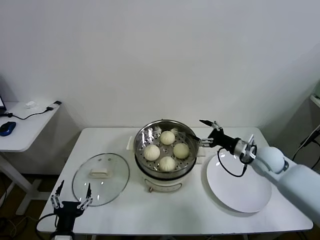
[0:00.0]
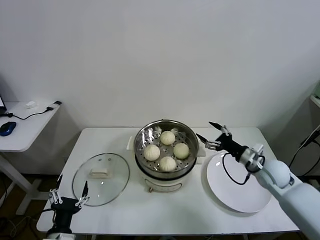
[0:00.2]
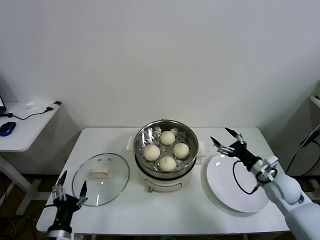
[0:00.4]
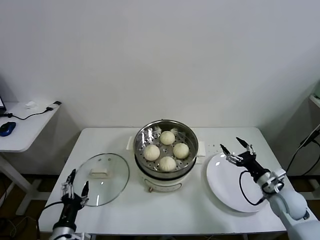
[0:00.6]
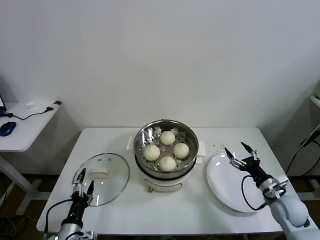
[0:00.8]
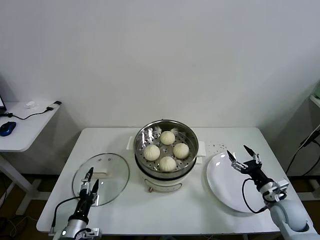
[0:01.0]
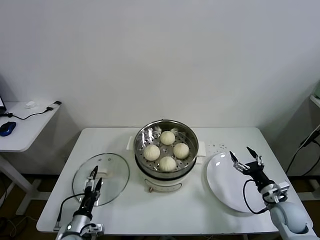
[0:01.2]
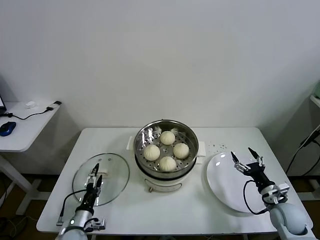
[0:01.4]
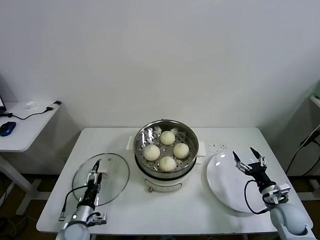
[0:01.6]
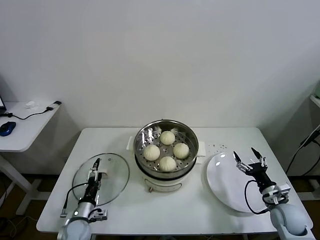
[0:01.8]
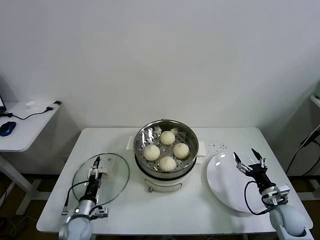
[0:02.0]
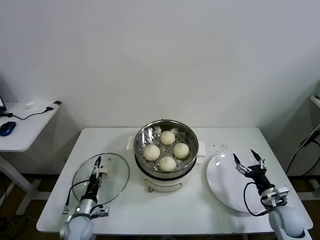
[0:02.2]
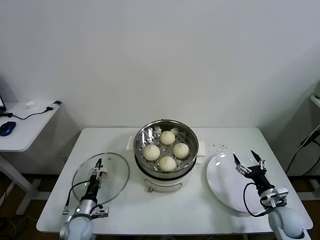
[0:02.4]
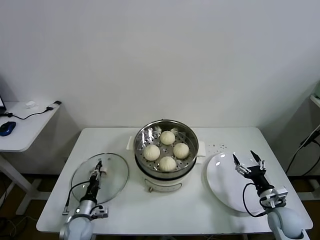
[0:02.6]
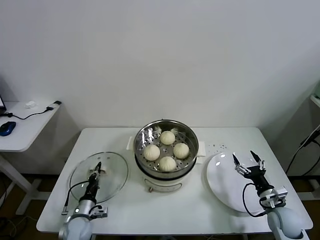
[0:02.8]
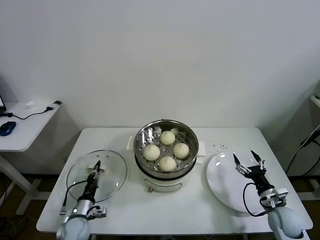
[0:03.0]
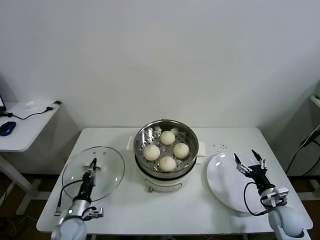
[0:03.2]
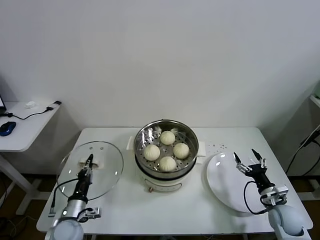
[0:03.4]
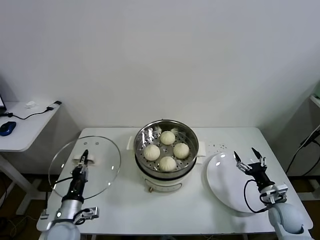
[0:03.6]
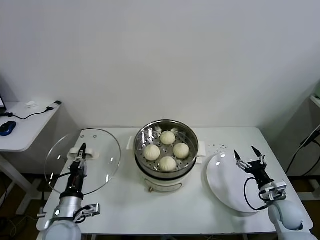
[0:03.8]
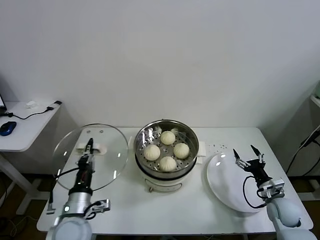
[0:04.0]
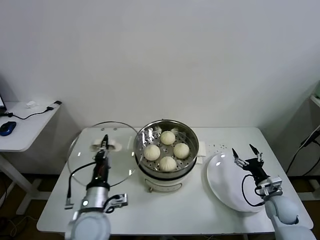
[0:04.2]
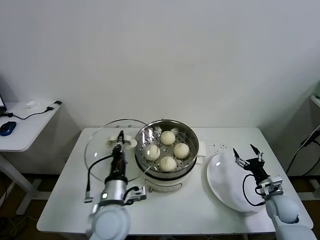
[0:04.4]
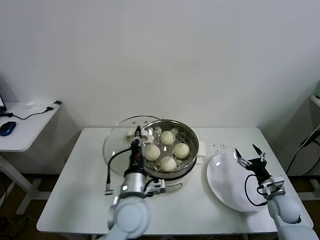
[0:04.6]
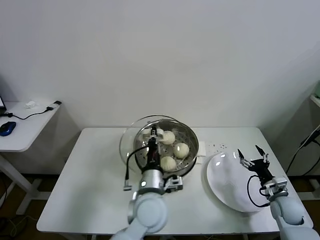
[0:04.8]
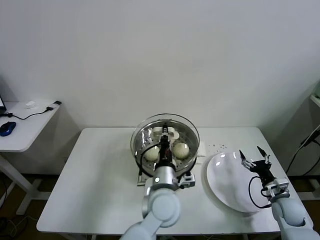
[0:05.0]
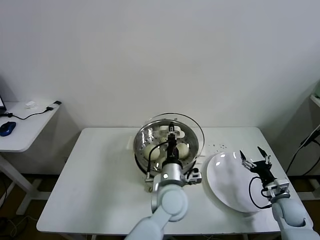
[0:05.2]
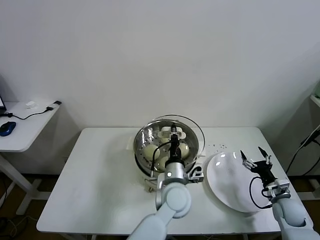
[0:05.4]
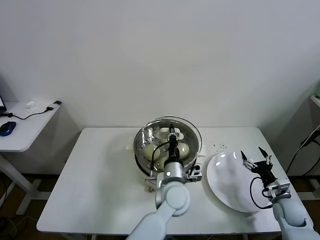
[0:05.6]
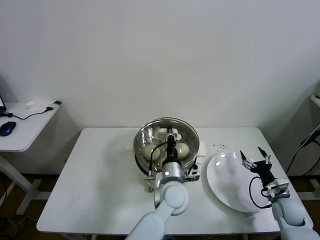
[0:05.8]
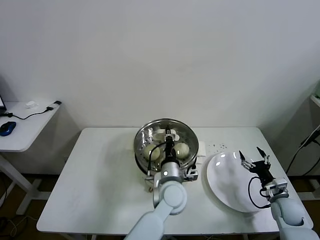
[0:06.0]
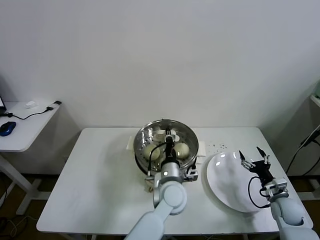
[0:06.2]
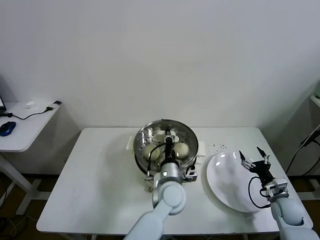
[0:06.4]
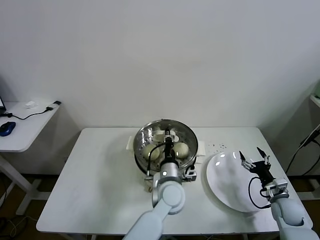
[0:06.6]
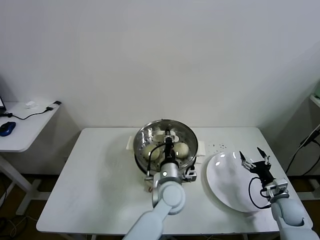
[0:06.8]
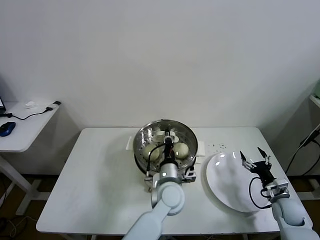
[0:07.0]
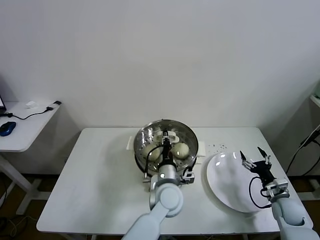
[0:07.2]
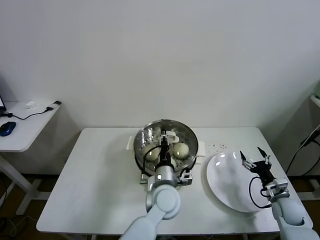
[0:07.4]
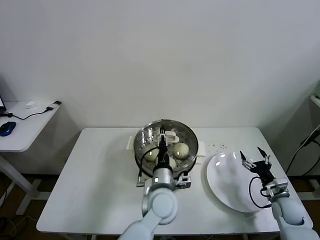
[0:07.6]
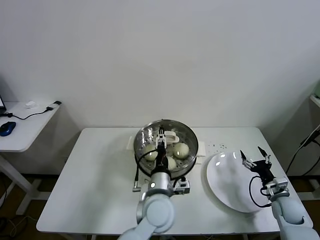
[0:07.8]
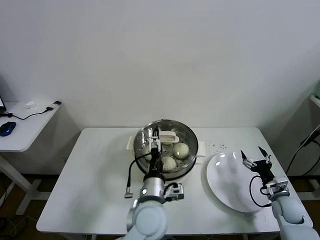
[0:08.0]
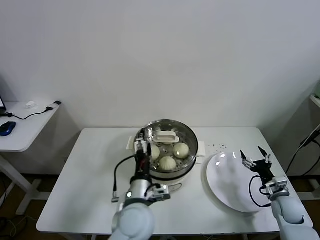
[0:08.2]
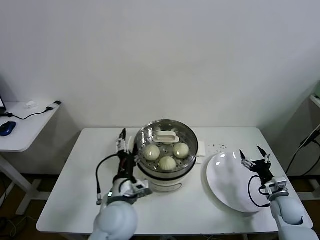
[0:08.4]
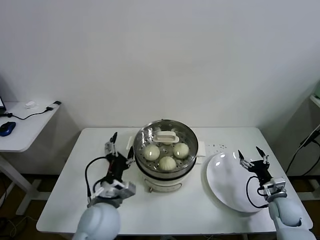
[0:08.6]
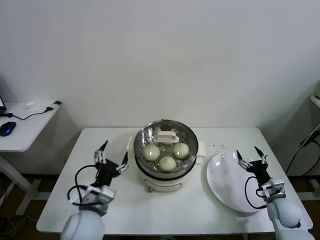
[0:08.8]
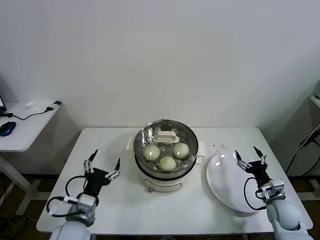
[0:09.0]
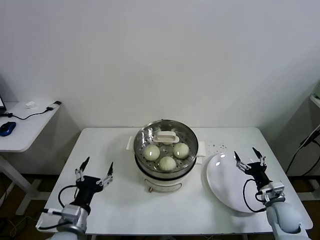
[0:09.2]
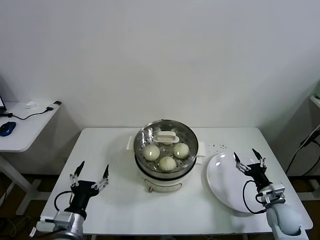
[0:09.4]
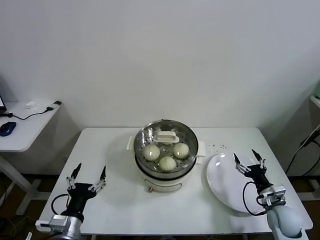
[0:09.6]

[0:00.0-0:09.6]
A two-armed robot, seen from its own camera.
Task of the whole recording: take steamed baozi put them in steamer.
Step, 0:00.0 to 0:02.8: Grasp the pot lid with left gripper.
Step, 0:03.0 to 0:07.6: Place the pot lid on the steamer with left gripper.
0:00.0 to 0:01.6: The left gripper travels forward and downward by some 15 cm; the right gripper shifts some 20 cm backward, downward and to the right.
0:01.6 to 0:03.2: The left gripper closes up.
0:03.2 to 0:04.8: The left gripper heads to the right and upward, covering some 35 cm.
0:04.8 to 0:06.4: The left gripper heads to the right, forward and downward, covering roughly 10 cm.
0:06.4 to 0:08.0: The left gripper goes about 10 cm backward and to the left, and opens up.
0:08.0 to 0:09.6: The left gripper goes about 25 cm to the left. Meanwhile the right gripper changes place by about 5 cm.

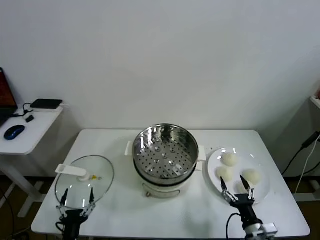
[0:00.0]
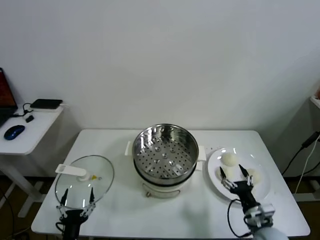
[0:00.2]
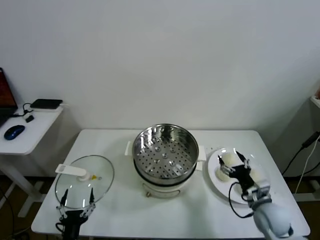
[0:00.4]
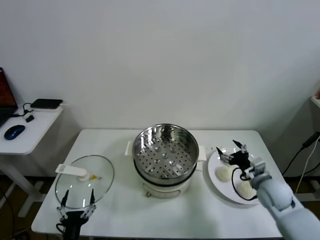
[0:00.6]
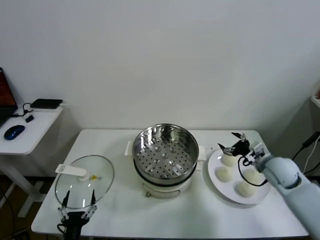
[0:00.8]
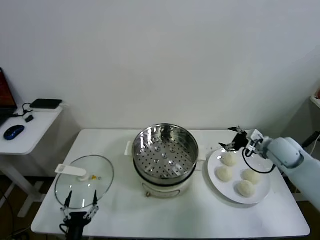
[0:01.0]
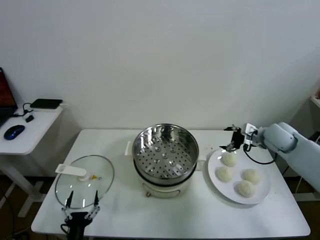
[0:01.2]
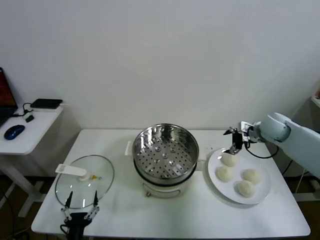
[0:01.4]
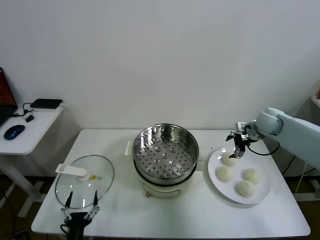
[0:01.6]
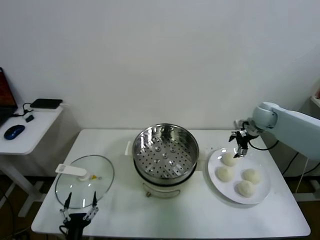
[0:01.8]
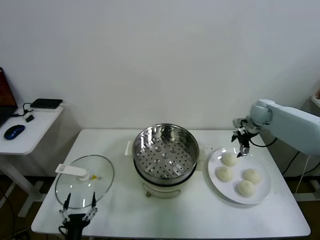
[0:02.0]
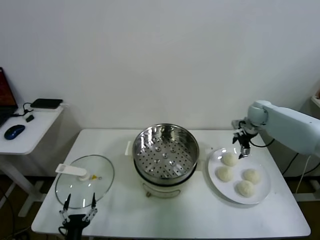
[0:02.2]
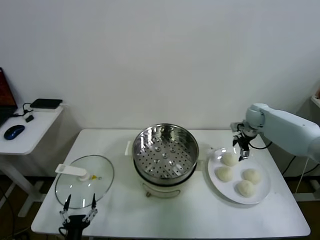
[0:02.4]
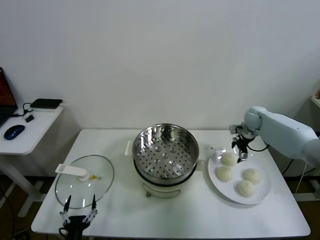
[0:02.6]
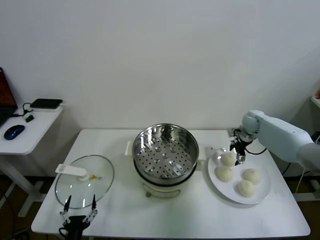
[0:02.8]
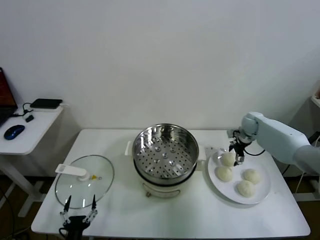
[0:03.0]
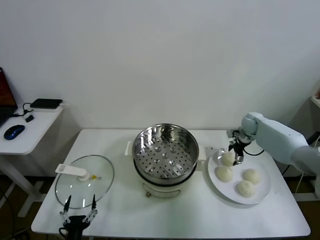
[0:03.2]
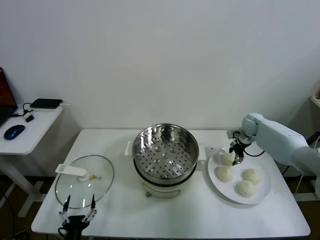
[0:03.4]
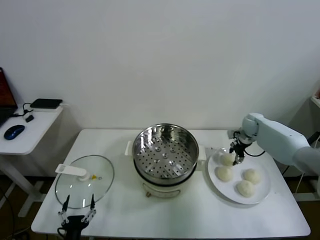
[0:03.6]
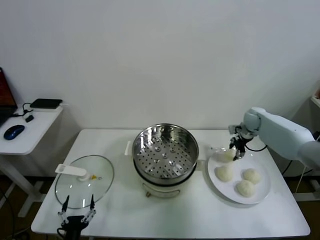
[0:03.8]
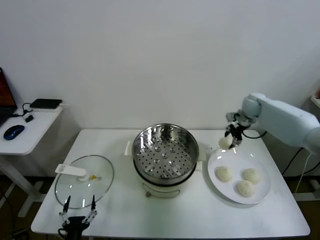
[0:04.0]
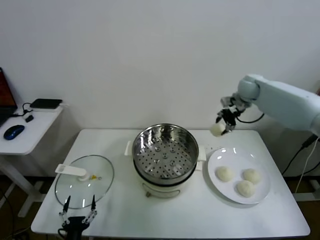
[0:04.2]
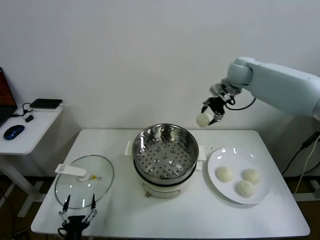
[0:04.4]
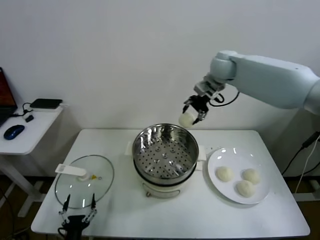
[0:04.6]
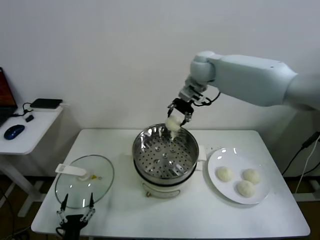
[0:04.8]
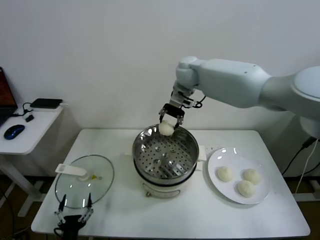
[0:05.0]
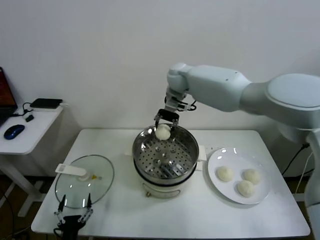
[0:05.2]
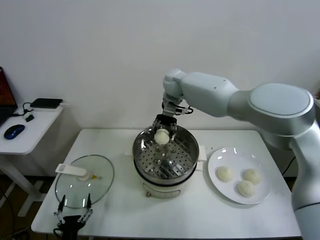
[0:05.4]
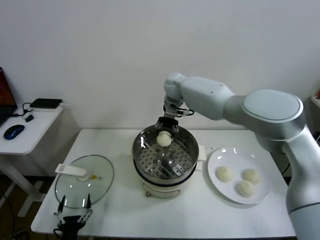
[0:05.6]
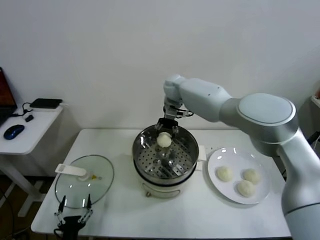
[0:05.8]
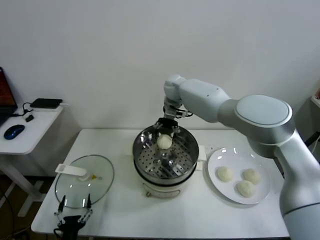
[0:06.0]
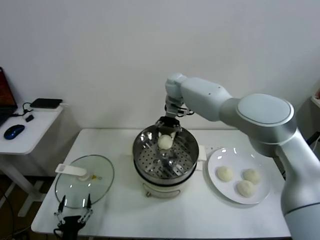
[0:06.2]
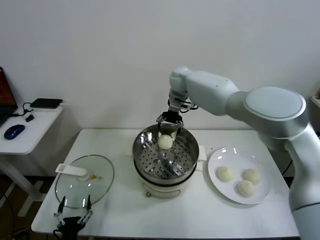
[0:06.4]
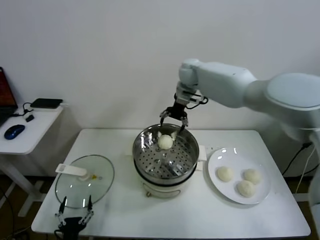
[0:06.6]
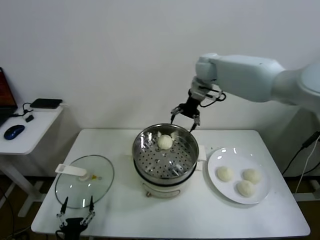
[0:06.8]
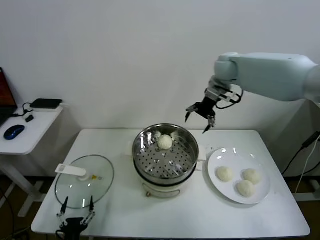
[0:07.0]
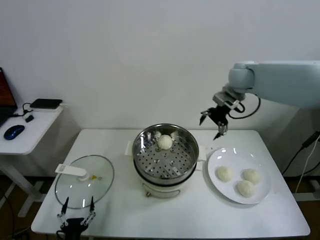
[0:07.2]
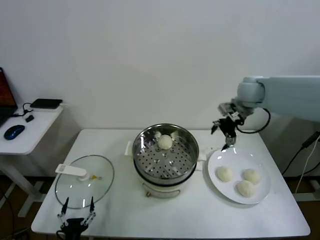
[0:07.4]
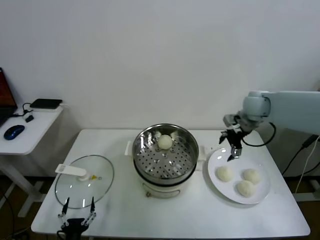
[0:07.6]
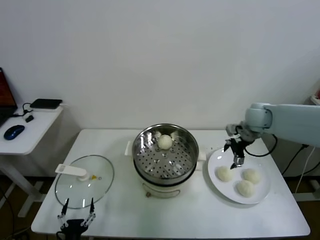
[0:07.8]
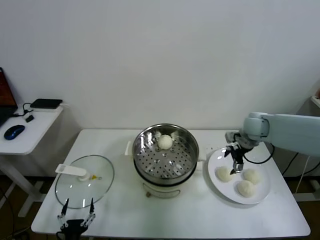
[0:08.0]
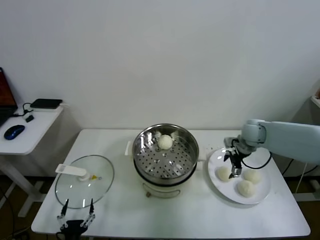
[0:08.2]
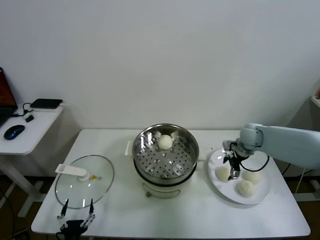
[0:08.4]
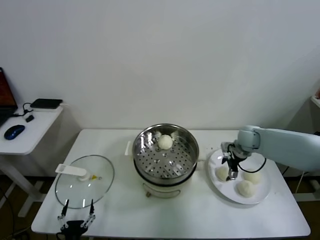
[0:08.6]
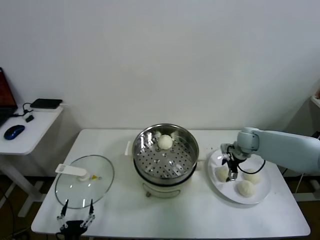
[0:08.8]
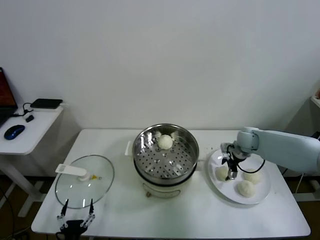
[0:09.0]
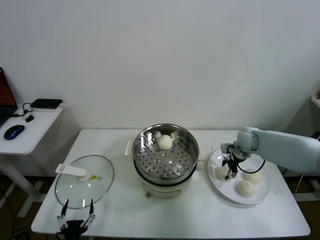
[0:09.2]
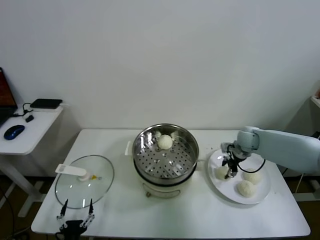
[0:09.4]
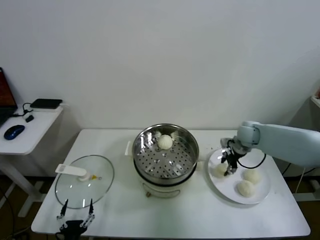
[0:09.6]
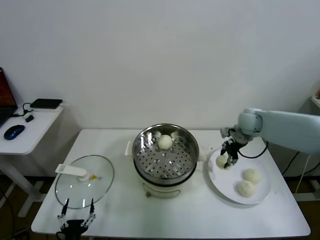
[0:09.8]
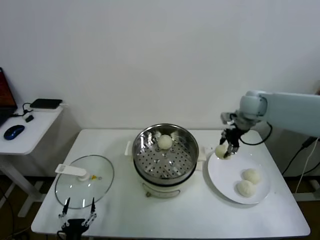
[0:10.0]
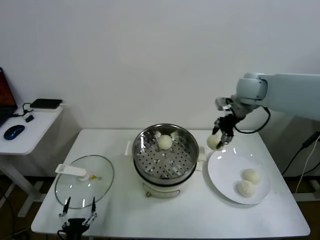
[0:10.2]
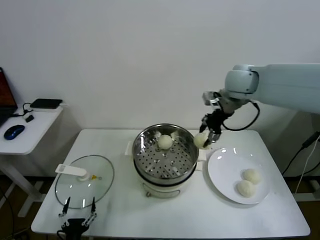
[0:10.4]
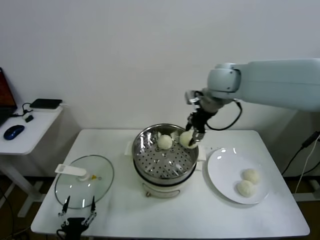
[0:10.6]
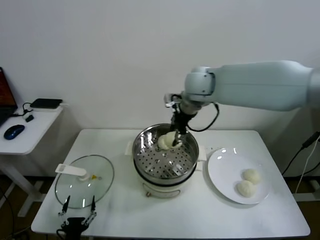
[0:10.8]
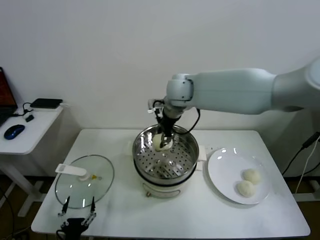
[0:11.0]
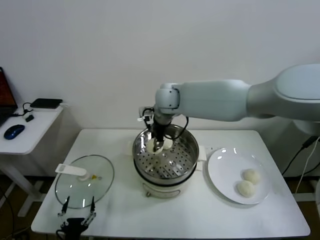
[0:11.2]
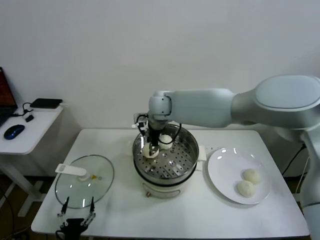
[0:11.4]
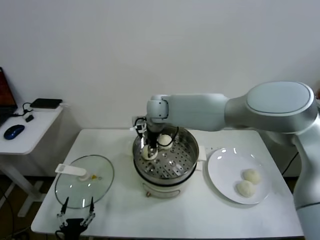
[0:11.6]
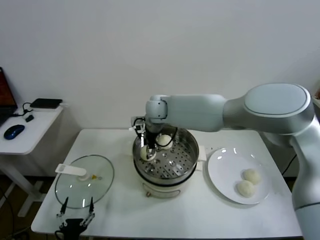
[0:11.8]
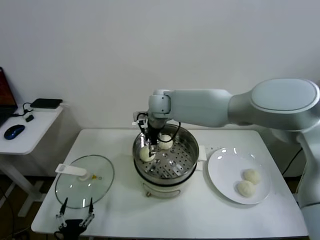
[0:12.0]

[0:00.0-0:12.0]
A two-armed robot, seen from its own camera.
Task of the whole recording: take steamed baozi put them in steamer.
Step, 0:00.0 to 0:03.6: Grasp the baozi in the plate with right gripper.
Step, 0:03.8 to 0:06.2: Place the baozi on the steamer with right gripper.
Step, 0:06.4 to 0:09.4: Grasp the baozi in the plate with right gripper.
Step, 0:09.6 to 0:12.0: Place the baozi on the steamer with right gripper.
0:01.6 to 0:03.0: The right gripper travels downward and forward by approximately 10 cm.
0:03.0 to 0:04.4: The right gripper heads upward and to the left, covering some 30 cm, and closes up.
0:04.4 to 0:06.0: The right gripper heads to the left and downward, covering about 20 cm, and opens.
0:06.0 to 0:07.6: The right gripper moves to the right and backward, about 30 cm.
0:07.6 to 0:09.0: The right gripper heads downward, covering some 15 cm.
0:09.0 to 0:10.4: The right gripper heads upward and to the left, covering roughly 30 cm, and closes up.
0:10.4 to 0:12.0: The right gripper shifts approximately 25 cm to the left and downward, and opens.
